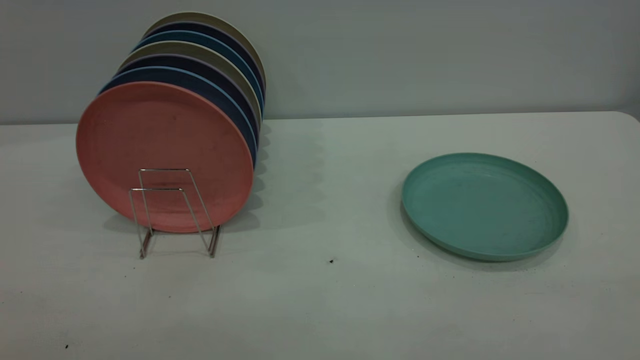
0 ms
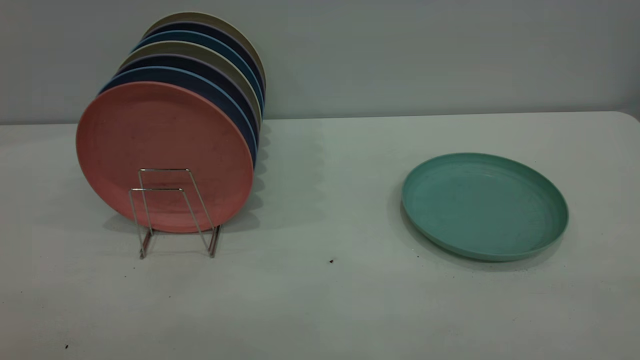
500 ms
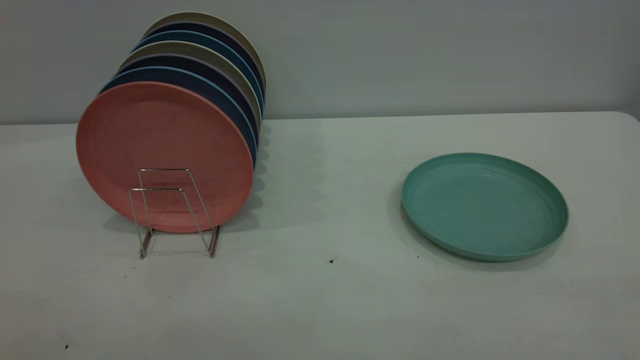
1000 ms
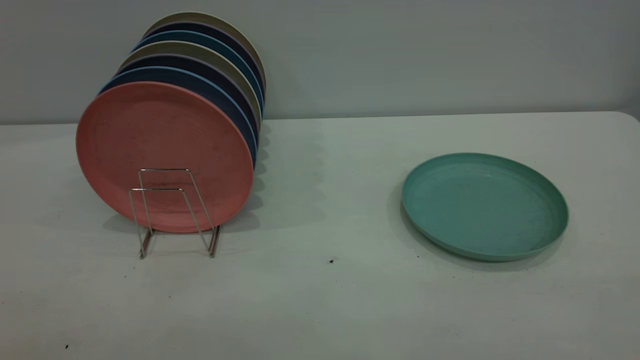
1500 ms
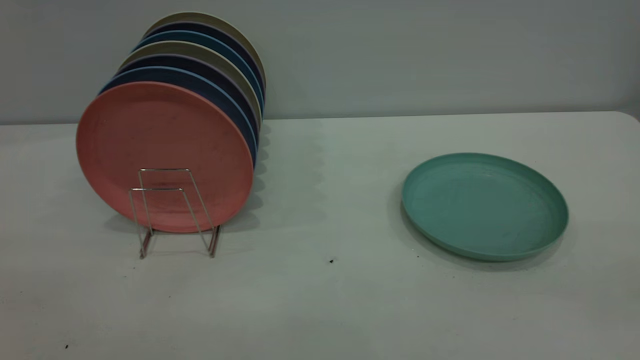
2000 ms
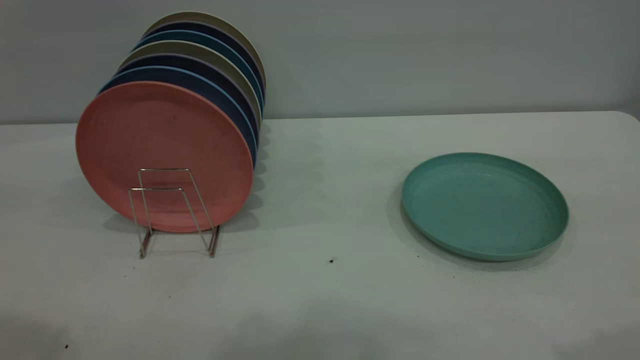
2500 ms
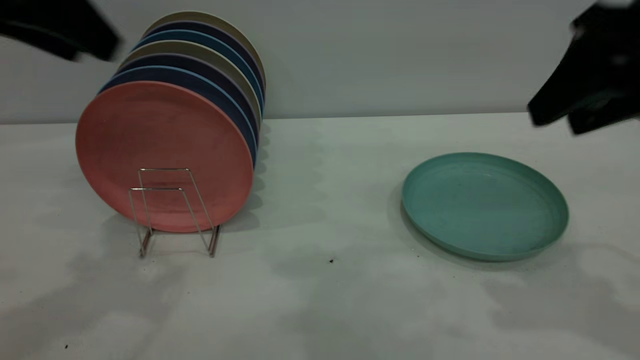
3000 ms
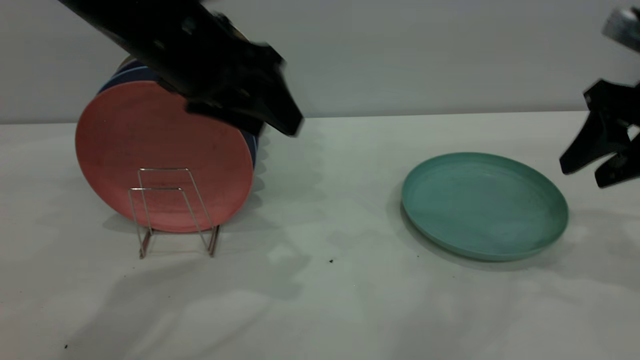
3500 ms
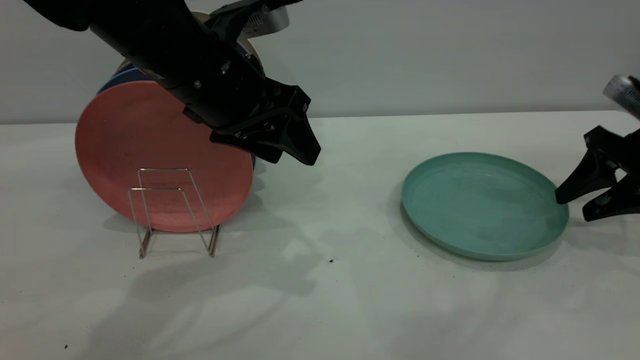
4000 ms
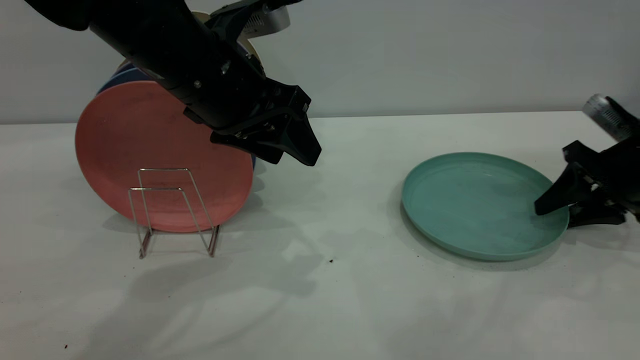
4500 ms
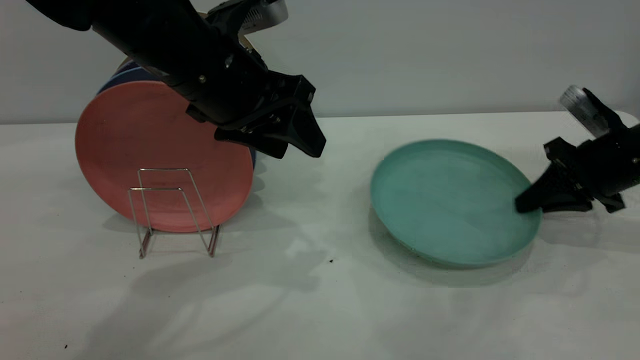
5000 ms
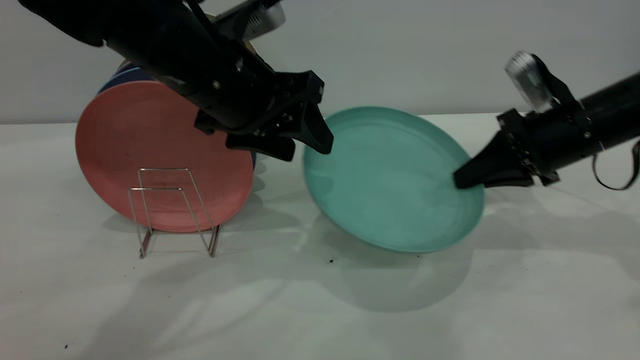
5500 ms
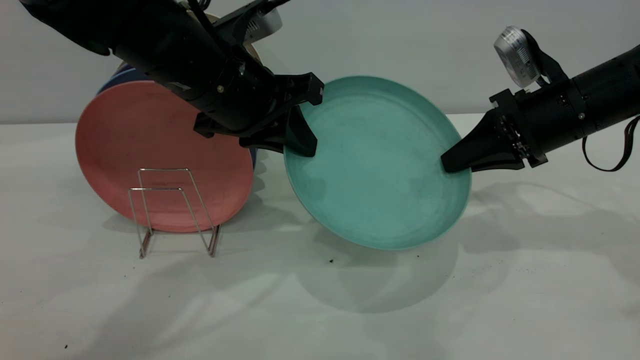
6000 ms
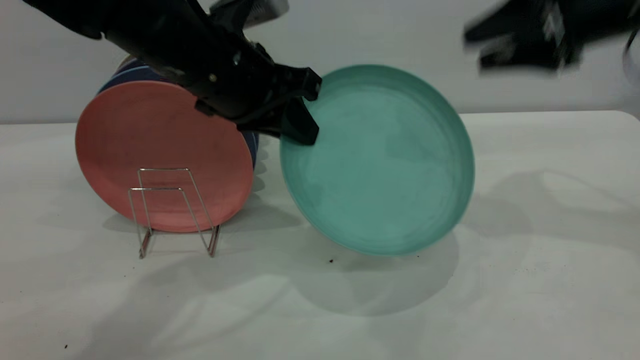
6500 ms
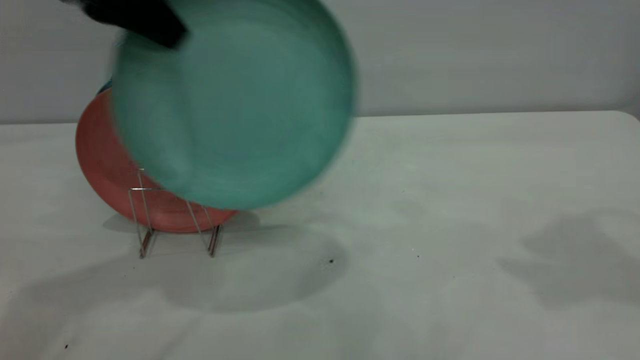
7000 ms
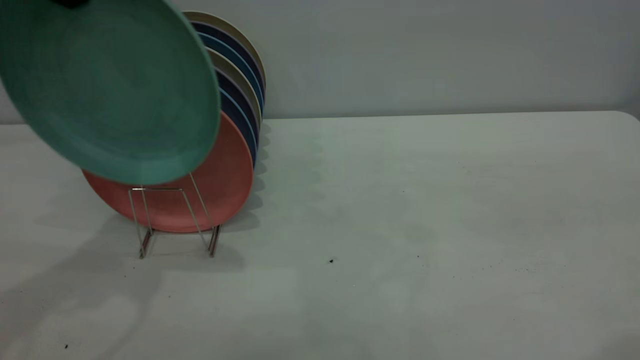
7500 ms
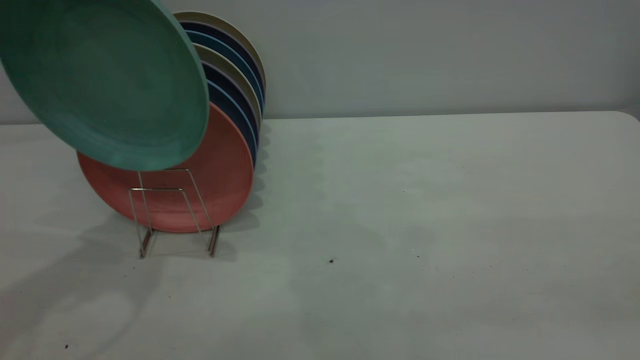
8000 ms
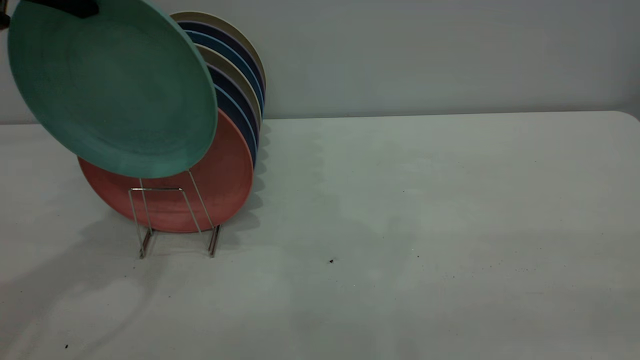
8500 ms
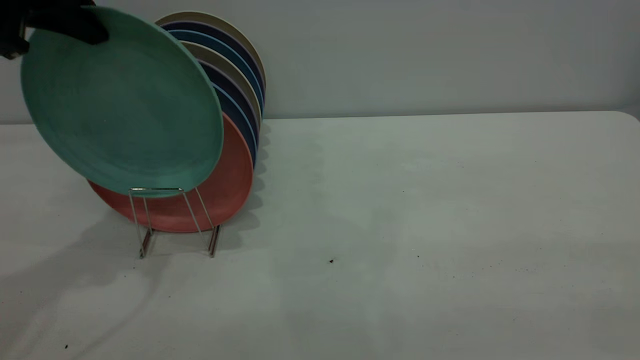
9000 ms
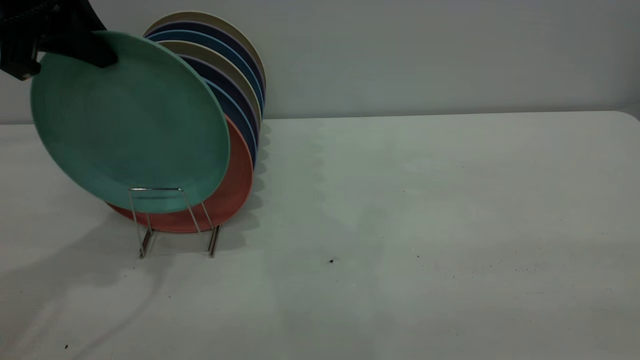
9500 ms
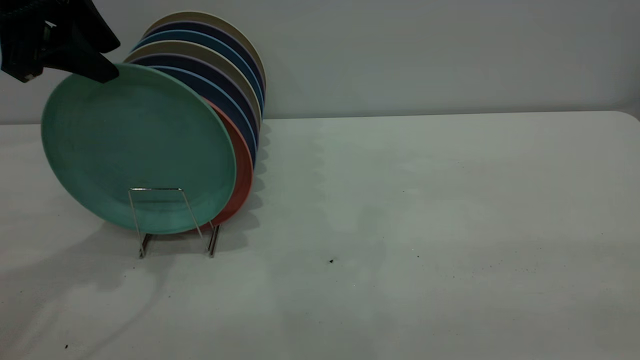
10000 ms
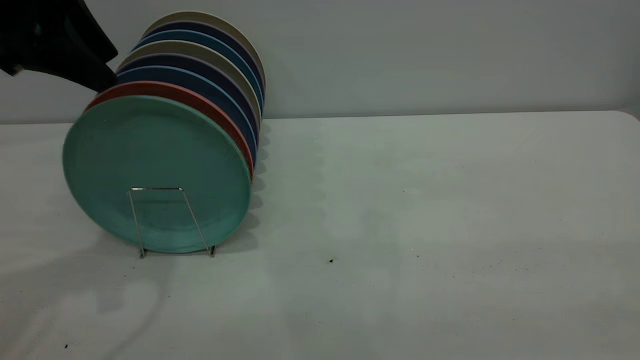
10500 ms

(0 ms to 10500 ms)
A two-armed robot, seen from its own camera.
Task of the whole recording: the right gripper grasp the green plate, the right gripper pass the green plate to the left gripper, and the left gripper place the green plate on the plate rack.
Step, 0 ms - 5000 ms: Pick up the plate with the right gripper.
Step, 5500 ms - 6000 ms: Pass the plate from the right gripper to the left gripper.
2000 ms - 4000 ms: The right gripper moves forward and downward, approximately 40 cm, while the left gripper travels forward, to the right and downward by roughly 40 cm.
4000 ms - 6500 ms: The right gripper is displaced upward and to the left by roughly 20 cm, and closes and opens again. Meanwhile the left gripper closes.
6500 ms - 8500 ms: The right gripper moves backward, approximately 35 cm; the left gripper heads to the left and upward, covering some 20 cm.
8500 ms - 10500 ms: The left gripper opens its fingers.

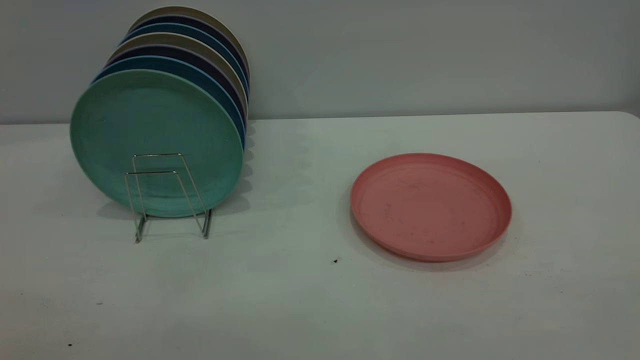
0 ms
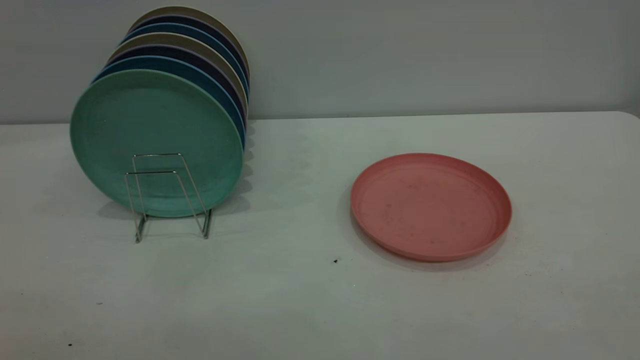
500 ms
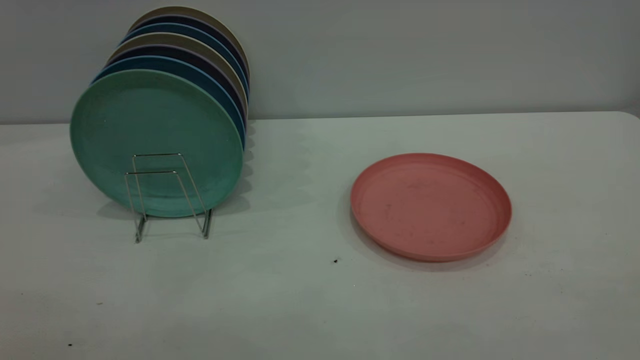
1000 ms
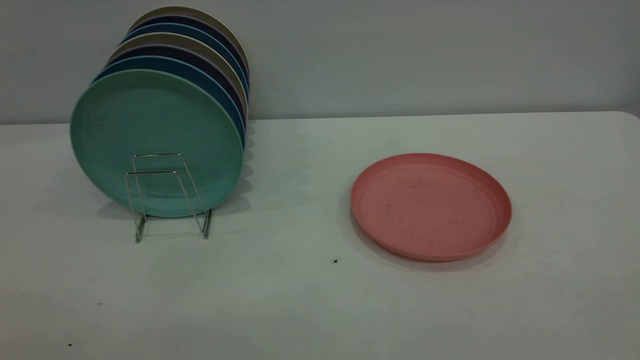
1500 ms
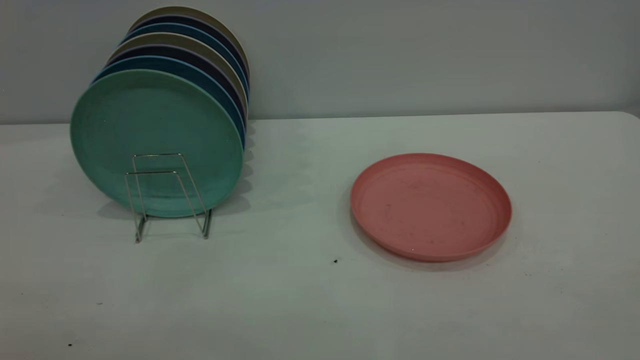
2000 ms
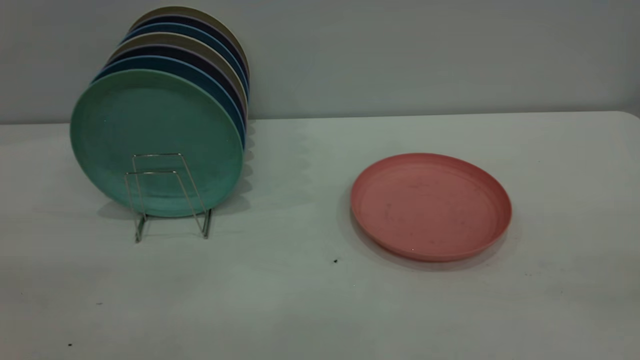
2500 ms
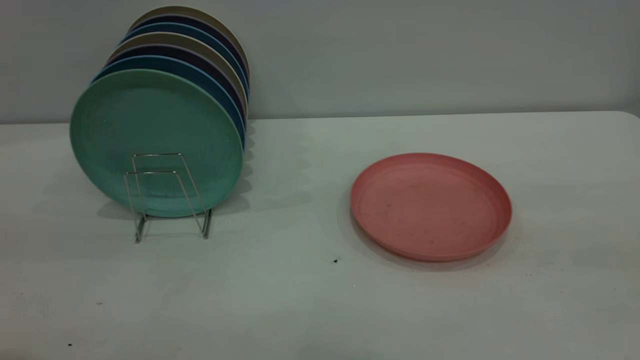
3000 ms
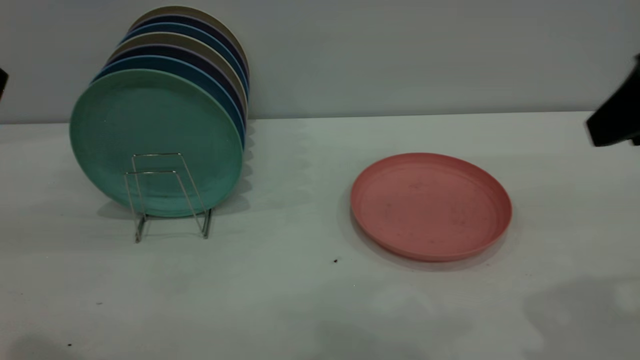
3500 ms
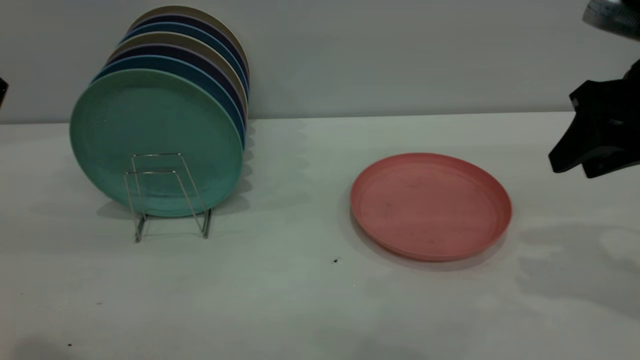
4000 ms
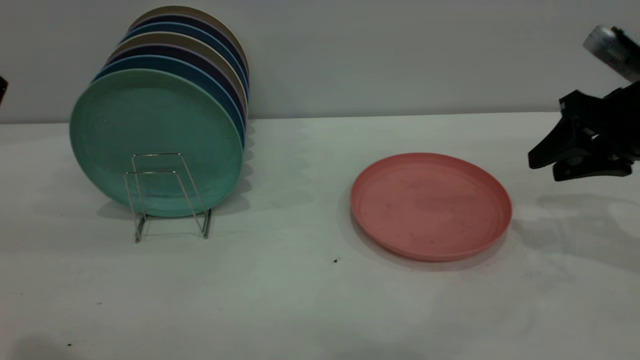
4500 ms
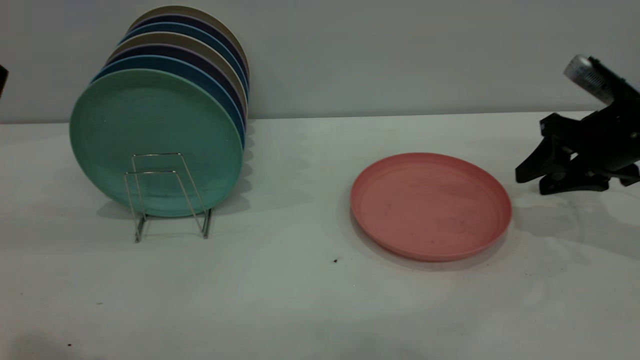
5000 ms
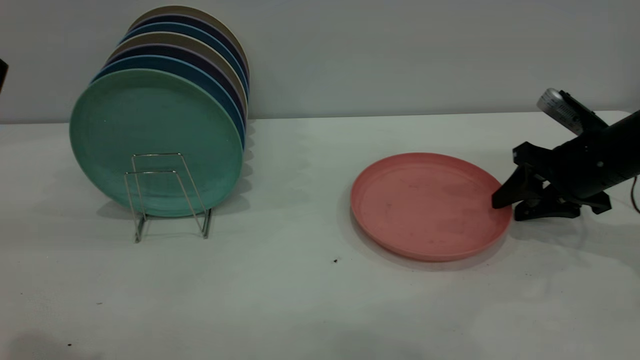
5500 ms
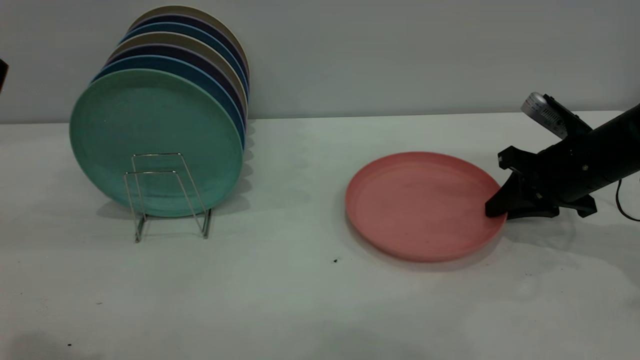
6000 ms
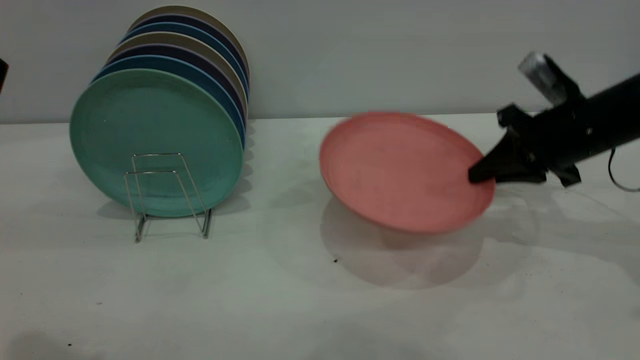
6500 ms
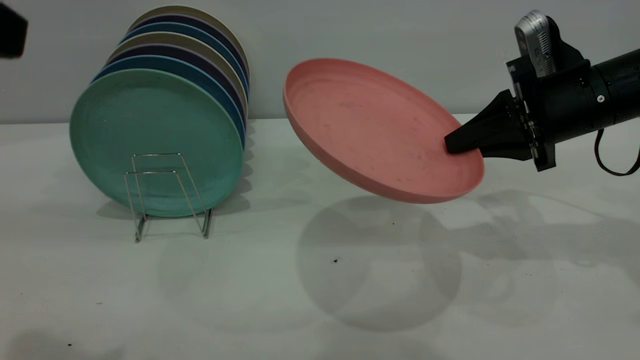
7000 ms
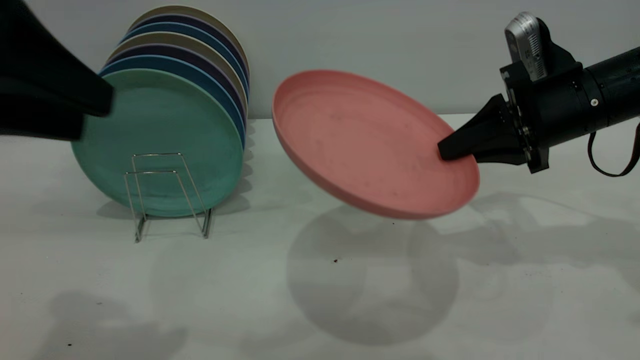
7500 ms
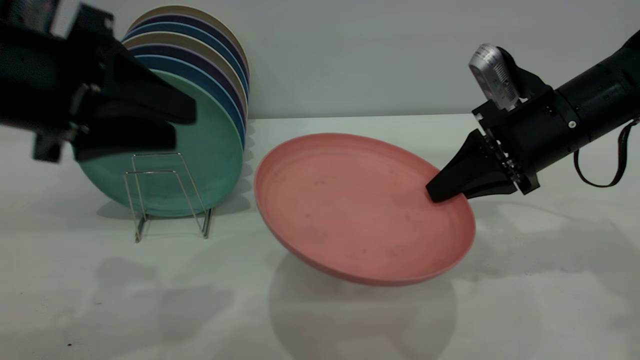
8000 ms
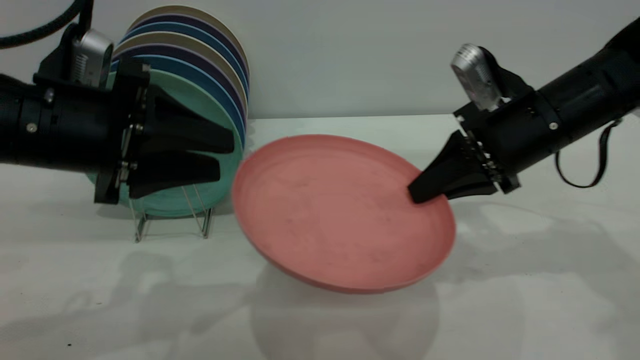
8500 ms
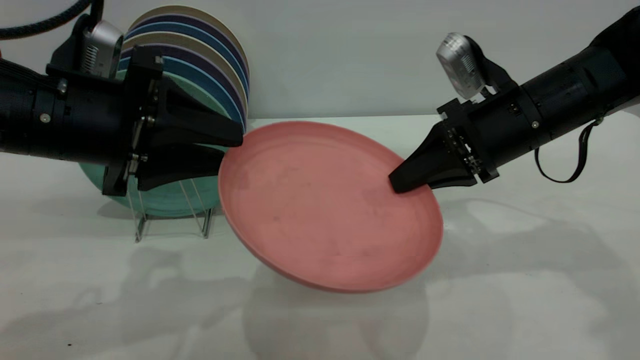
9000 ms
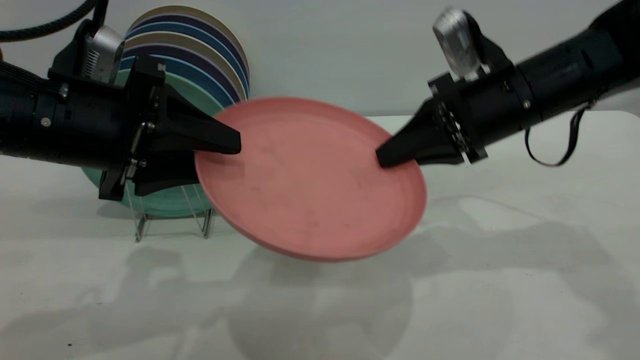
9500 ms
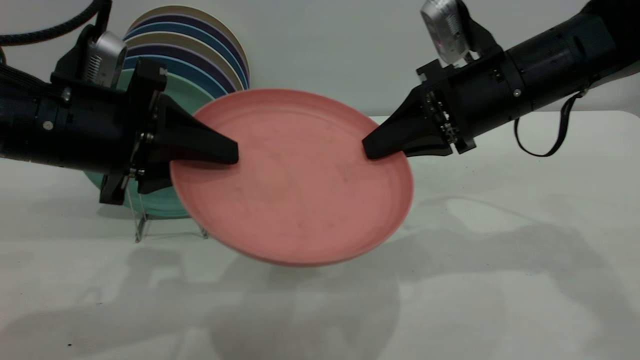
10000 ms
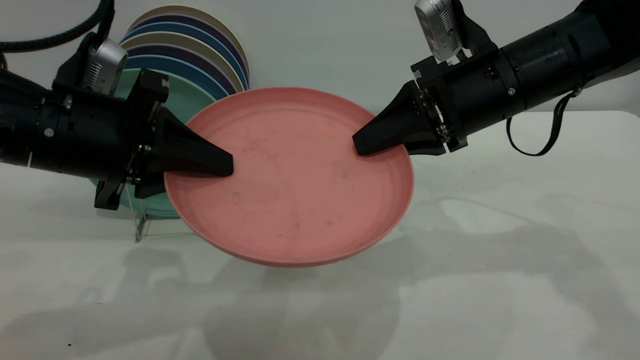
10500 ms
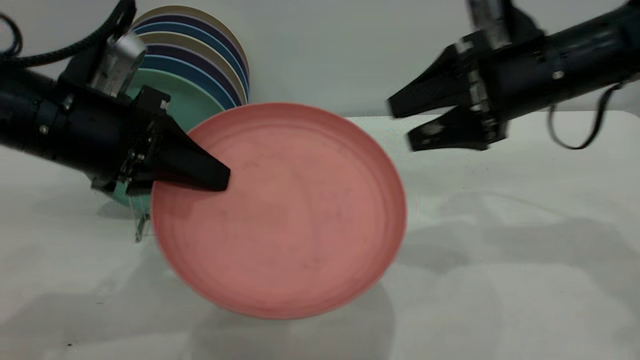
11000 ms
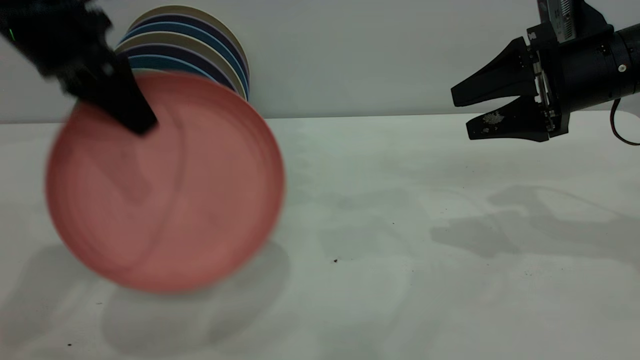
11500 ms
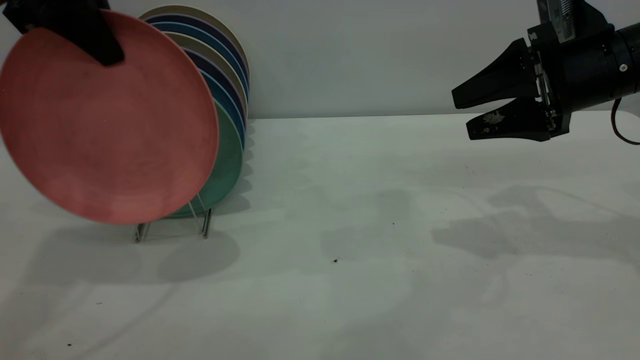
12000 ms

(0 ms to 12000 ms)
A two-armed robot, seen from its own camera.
Task of the whole recording: the right gripper grasp the pink plate, the right gripper pass the pink plate to the left gripper, and the left gripper place the pink plate on the plate rack.
Step, 0 ms - 6000 ms: Pick up the plate with the right gripper.
Step, 7000 ms - 11000 ms: Pass the plate from the right gripper to the left gripper.
2000 ms - 4000 ms: The right gripper heads forward, covering about 35 cm.
4000 ms - 6000 ms: The right gripper is displaced downward and forward by approximately 15 cm, and closes.
6000 ms - 8000 ms: The right gripper moves to the left and upward, roughly 10 cm. The left gripper goes approximately 15 cm downward and forward.
8000 ms - 10000 ms: The left gripper closes up, while the right gripper is displaced to the left by roughly 5 cm.
10000 ms - 12000 ms: The right gripper goes some 10 cm to the right, and opens. The left gripper moves upward and forward, about 20 cm.
